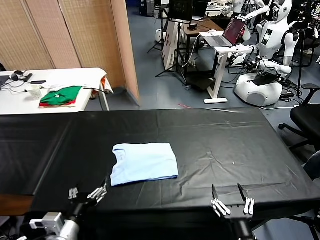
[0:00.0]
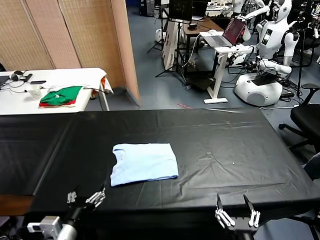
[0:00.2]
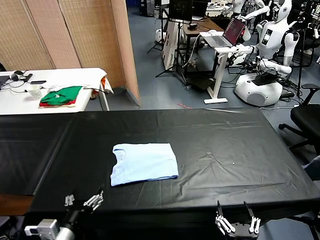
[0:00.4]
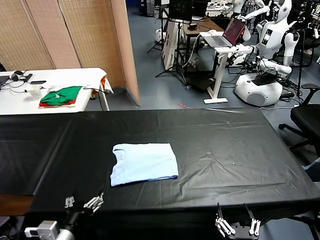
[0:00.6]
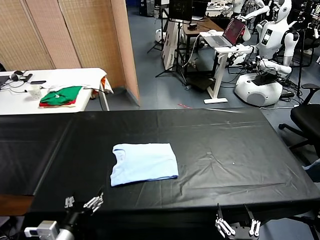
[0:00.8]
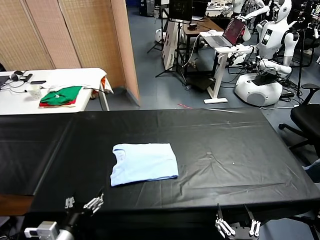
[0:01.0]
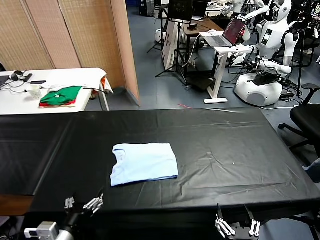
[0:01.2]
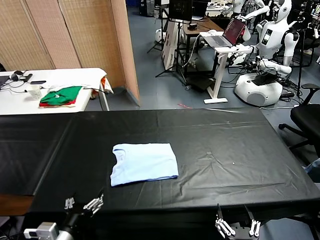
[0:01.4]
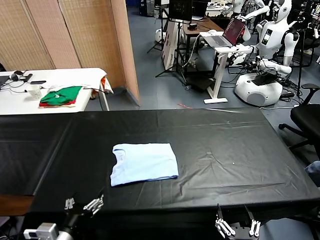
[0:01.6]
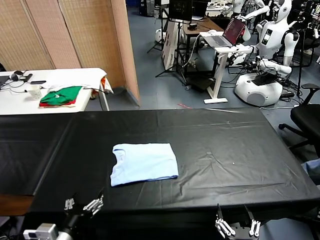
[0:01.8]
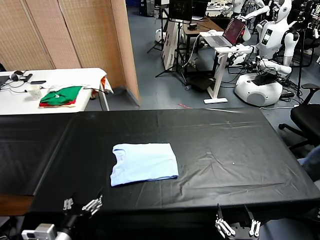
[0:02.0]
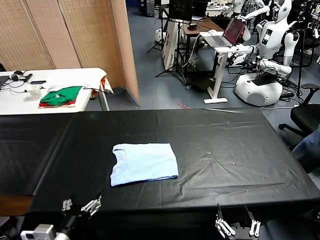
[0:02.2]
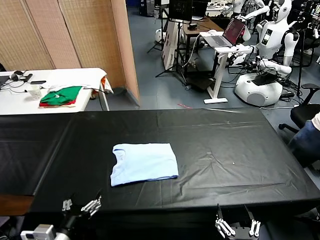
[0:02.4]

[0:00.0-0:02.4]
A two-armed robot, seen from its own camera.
Task of the whole recording: fold and organize the clothes.
0:00.0 to 0:01.2: There are only small adjustments of the grippers.
0:01.2 to 0:02.4: Neither gripper changes place.

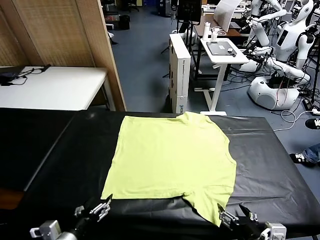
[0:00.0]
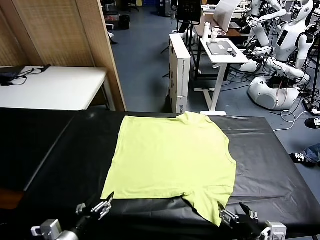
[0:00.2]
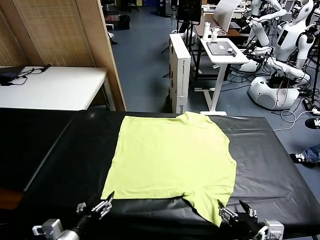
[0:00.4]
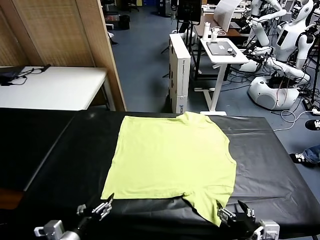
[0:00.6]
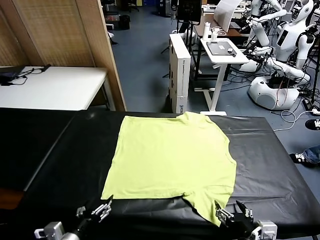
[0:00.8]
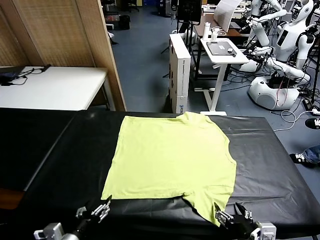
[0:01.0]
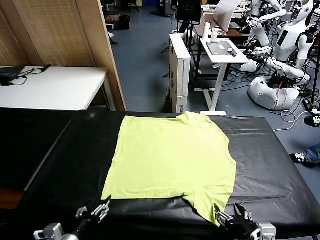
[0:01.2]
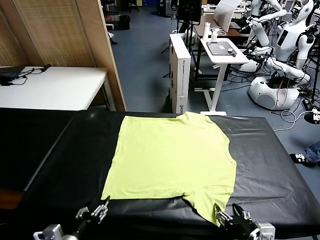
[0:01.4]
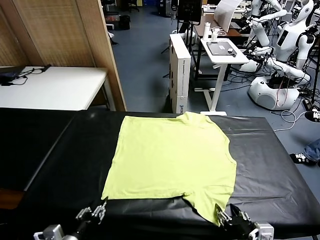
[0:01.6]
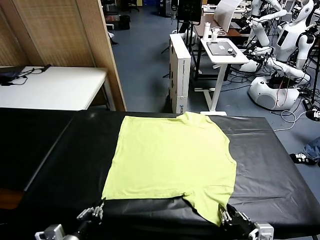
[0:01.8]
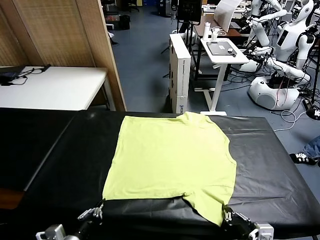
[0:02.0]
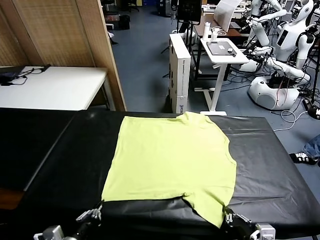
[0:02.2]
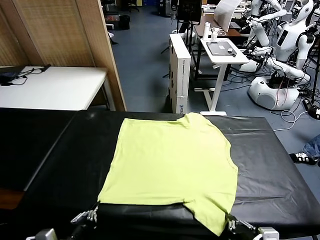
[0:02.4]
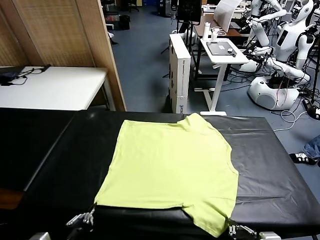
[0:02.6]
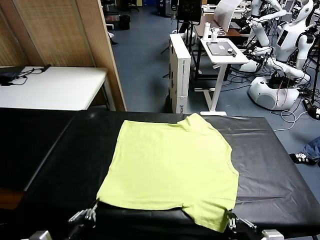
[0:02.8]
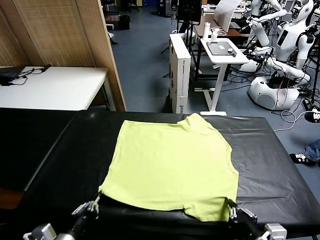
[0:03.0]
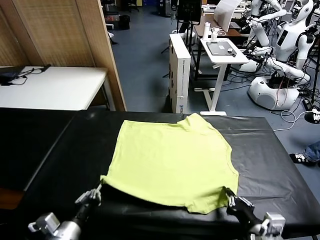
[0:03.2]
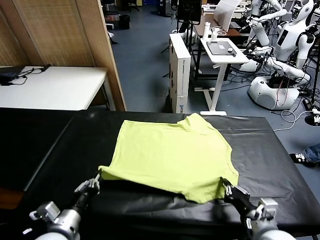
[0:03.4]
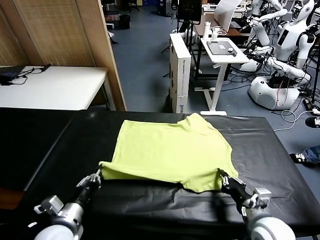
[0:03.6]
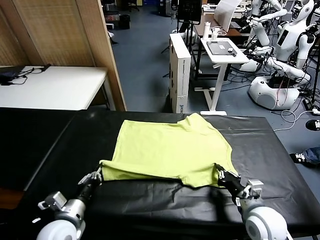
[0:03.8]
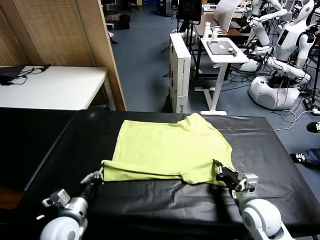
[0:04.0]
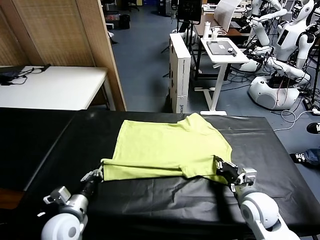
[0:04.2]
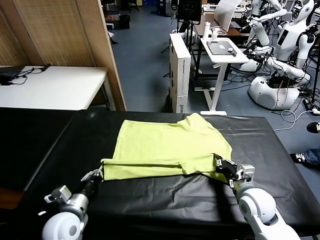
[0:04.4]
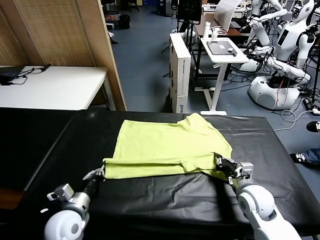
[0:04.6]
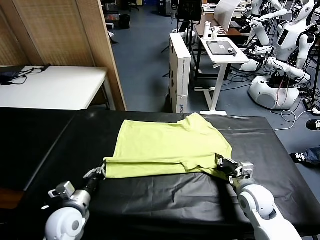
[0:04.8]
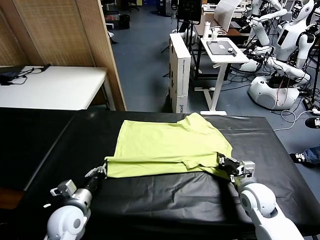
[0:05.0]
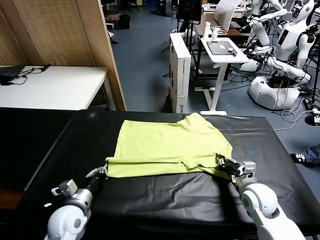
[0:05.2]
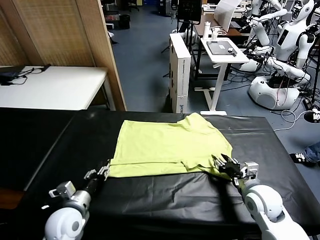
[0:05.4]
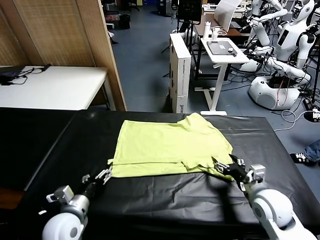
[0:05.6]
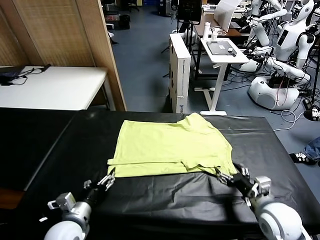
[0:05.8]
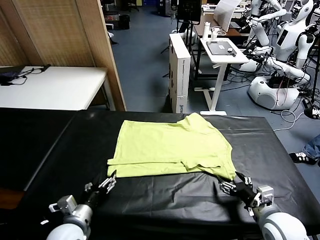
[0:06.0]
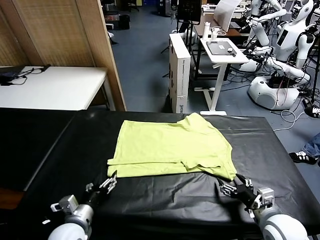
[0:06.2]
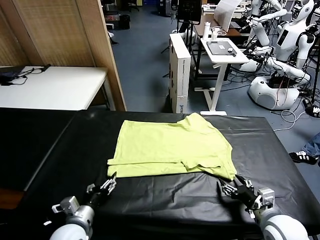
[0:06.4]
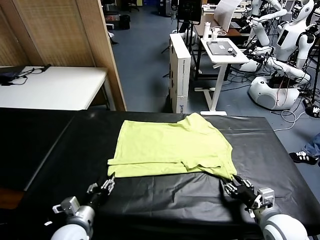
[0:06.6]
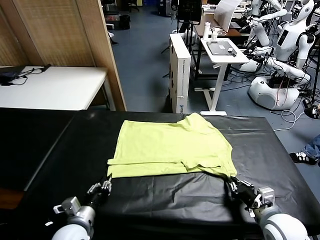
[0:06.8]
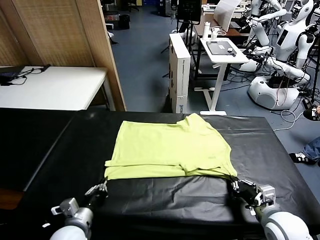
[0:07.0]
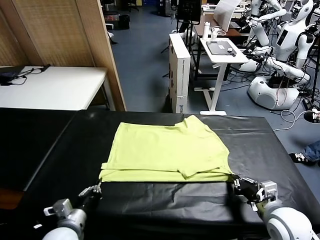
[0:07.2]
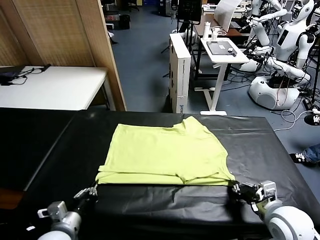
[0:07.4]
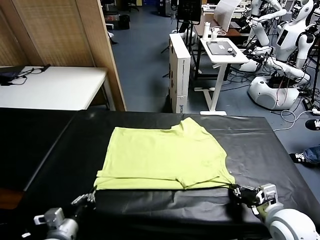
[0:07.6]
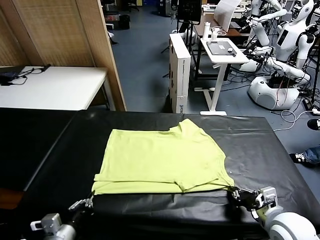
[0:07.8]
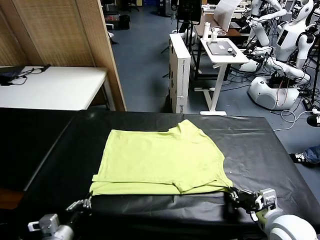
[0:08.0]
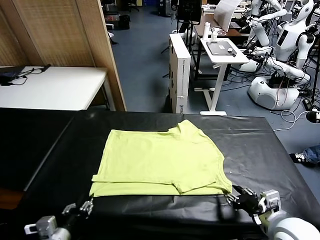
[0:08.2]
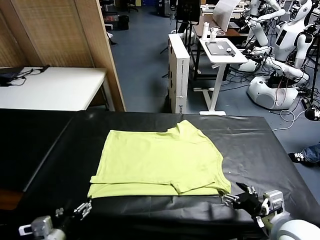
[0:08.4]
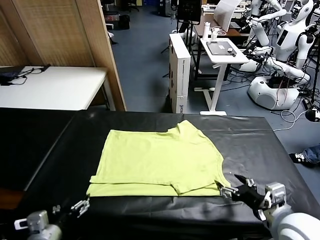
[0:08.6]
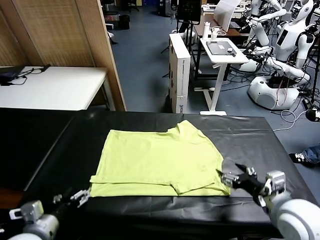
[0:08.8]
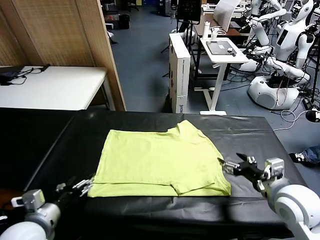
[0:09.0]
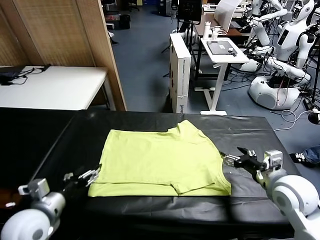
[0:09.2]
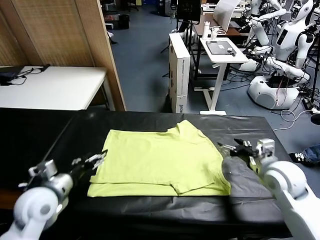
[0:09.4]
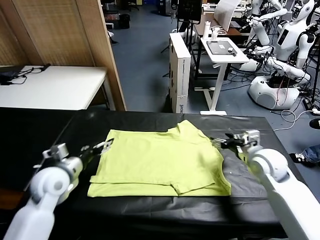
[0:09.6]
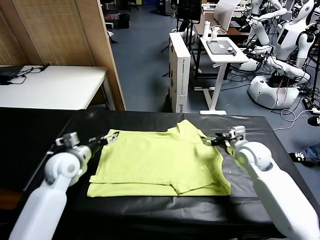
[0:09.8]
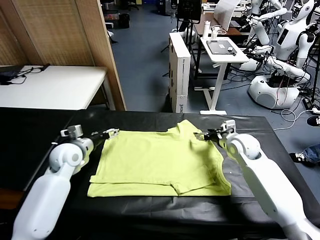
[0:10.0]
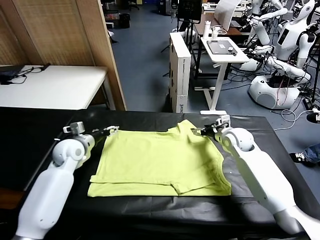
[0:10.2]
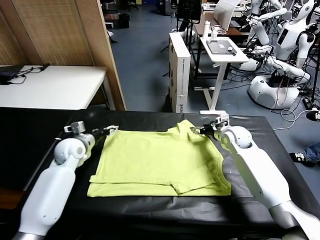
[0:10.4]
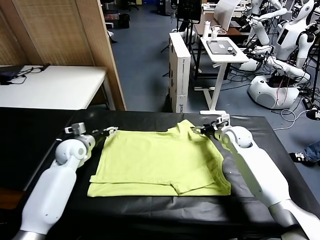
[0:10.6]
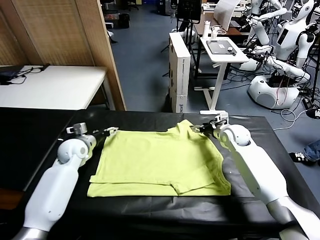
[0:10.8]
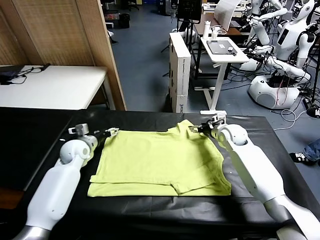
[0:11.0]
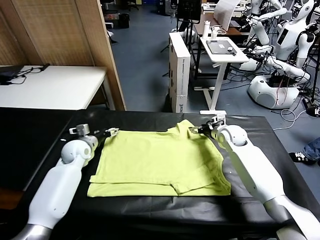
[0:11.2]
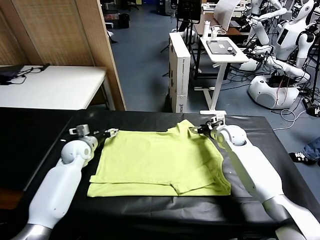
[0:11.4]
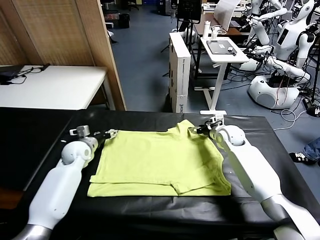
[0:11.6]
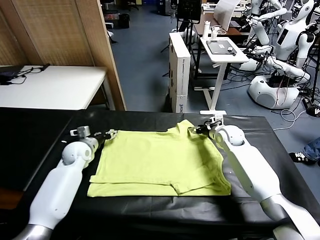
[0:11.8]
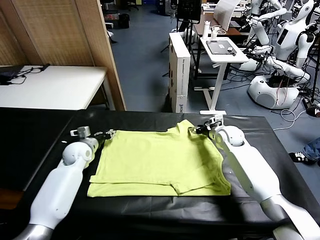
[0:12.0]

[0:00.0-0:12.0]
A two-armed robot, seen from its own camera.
Task of the whole recording: fold and organize the clothes.
Step, 0:00.0 to 0:02.0: use both grippers simultaneously to clamp the lower edge of the clothing fabric.
Step, 0:02.2 to 0:05.4: use both grippers to drag the lower edge of the fabric forward and fold it over the upper edge.
Step, 0:05.6 to 0:08.2: Drag the clothes downward with both gripper.
0:01.6 to 0:03.0: The left gripper ends up about 5 cm from where it was.
0:03.0 to 0:04.4: The left gripper shifts approximately 10 cm forward. The right gripper moves forward, about 15 cm.
0:04.4 to 0:06.0: The right gripper moves backward, roughly 10 cm, and opens. The left gripper opens its fingers.
0:06.0 to 0:07.6: The left gripper heads backward, covering some 5 cm, and closes, while the right gripper closes up.
0:07.6 to 0:09.0: The right gripper is displaced forward and upward by about 10 cm, and opens. The left gripper is displaced upward and forward by about 10 cm, and opens its fingers.
0:09.0 to 0:10.4: Both grippers travel together forward, about 25 cm.
0:10.4 to 0:12.0: The left gripper closes.

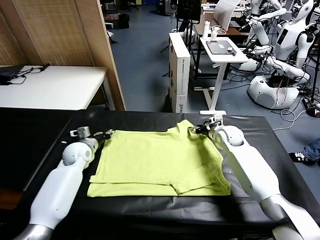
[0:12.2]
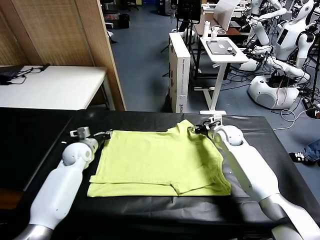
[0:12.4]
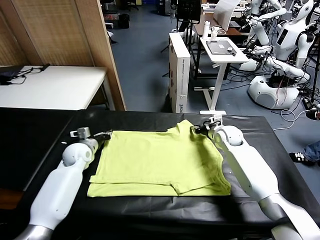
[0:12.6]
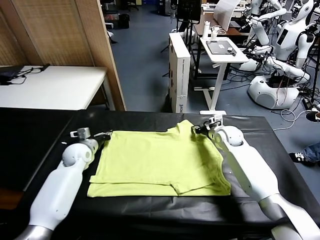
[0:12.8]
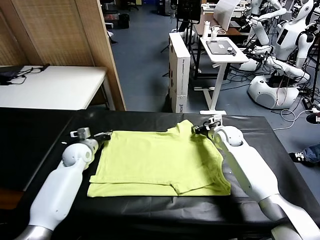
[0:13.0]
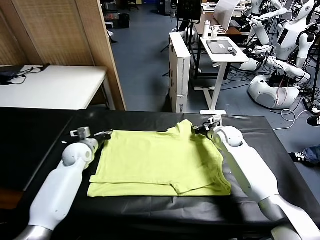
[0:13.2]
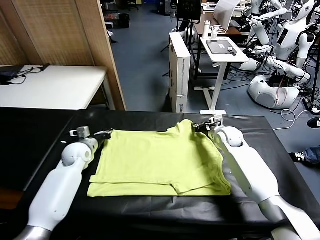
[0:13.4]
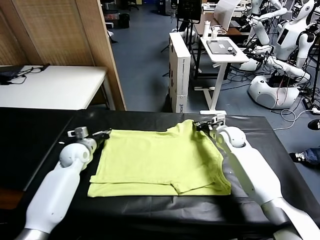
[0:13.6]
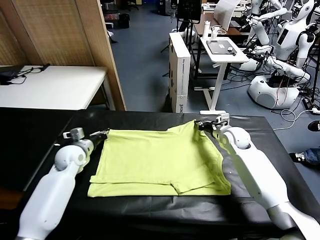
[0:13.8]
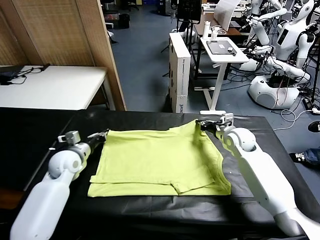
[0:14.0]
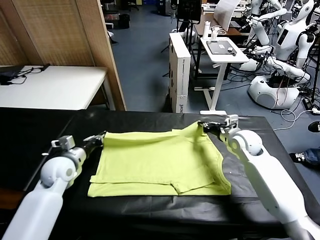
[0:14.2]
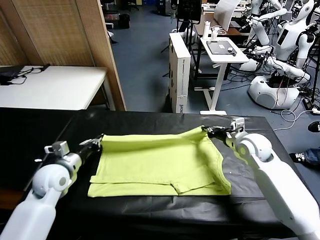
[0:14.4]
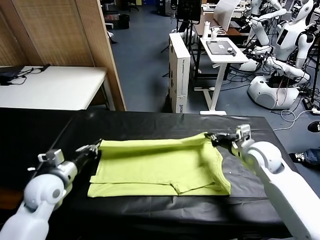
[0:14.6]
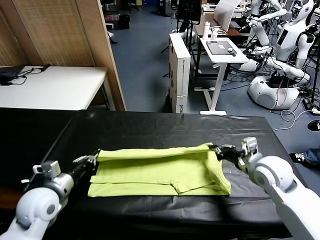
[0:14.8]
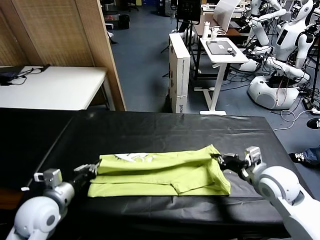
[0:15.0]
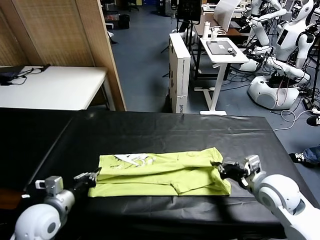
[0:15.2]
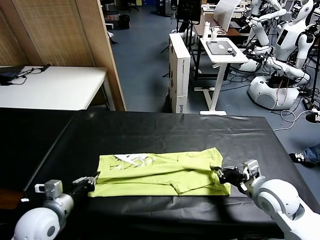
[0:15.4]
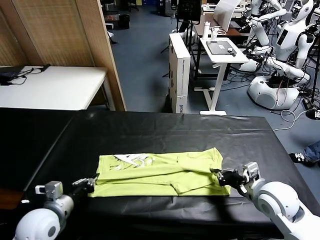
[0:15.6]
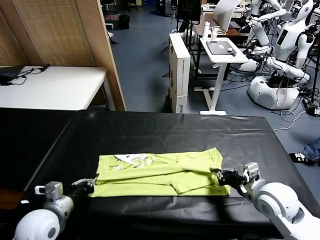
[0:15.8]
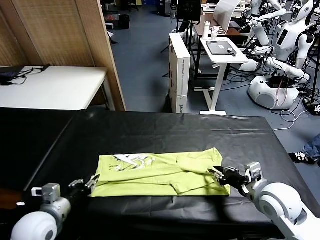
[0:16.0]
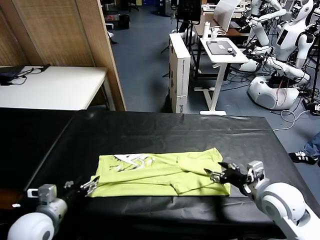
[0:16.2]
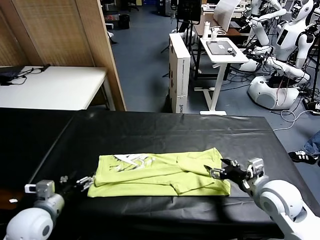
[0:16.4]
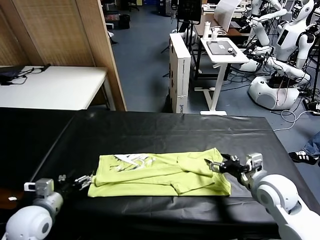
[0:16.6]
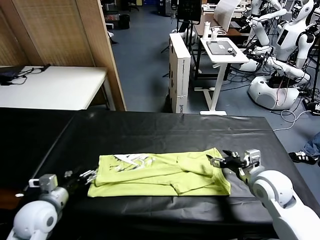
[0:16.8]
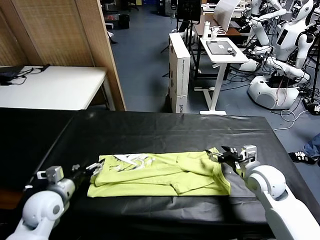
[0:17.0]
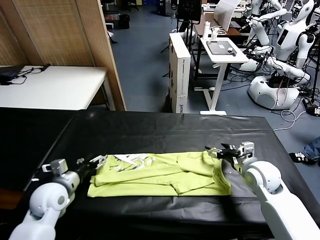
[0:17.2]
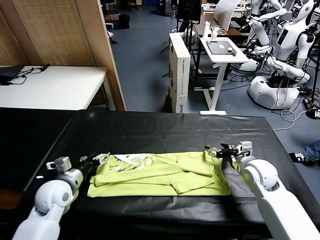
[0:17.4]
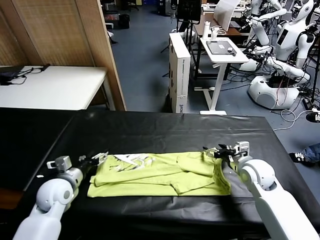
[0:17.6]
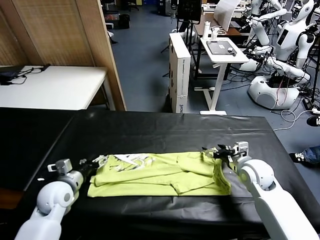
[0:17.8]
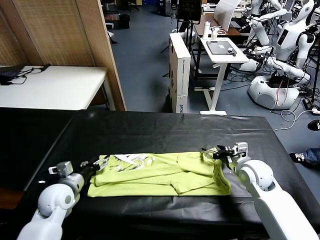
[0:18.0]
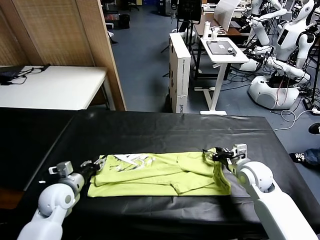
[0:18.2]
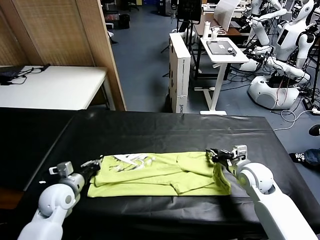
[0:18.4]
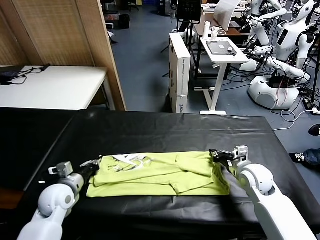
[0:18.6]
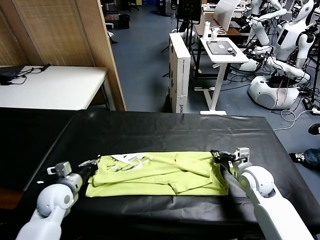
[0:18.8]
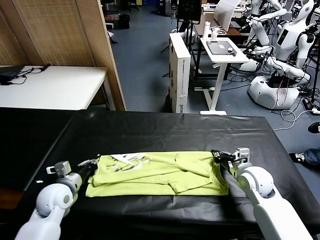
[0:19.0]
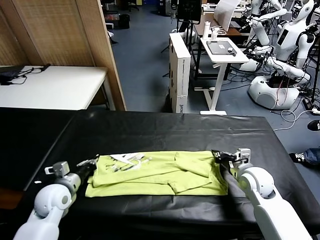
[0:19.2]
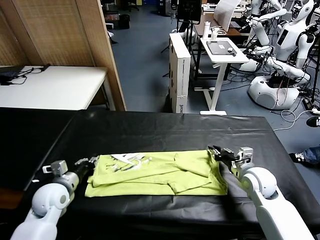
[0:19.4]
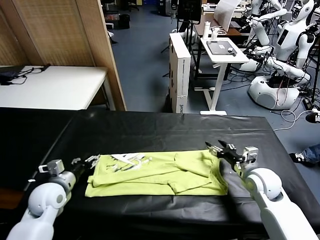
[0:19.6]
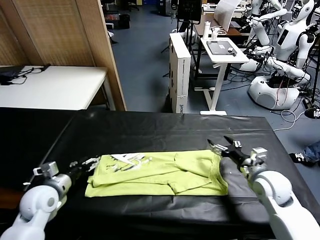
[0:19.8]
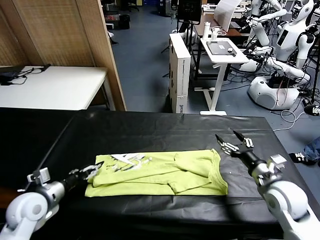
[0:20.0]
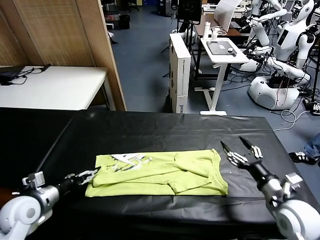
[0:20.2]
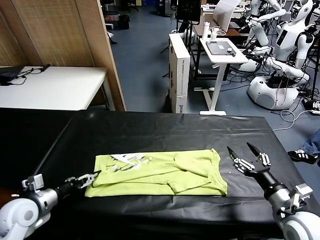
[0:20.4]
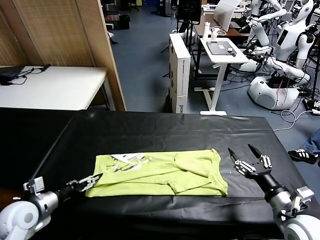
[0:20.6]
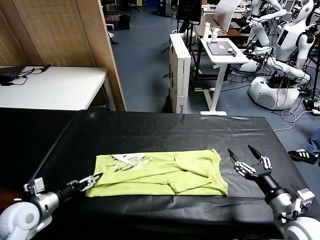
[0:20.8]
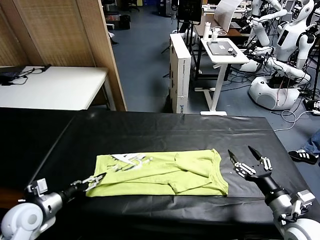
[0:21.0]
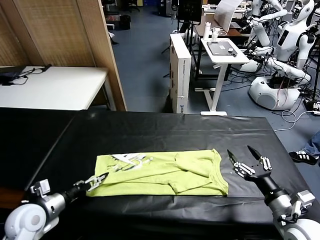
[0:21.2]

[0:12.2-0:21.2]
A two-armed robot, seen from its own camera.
Task of the whole recording: fold and organize the clothes.
Step, 0:13.4 to 0:16.2: use both grippers to drag the upper edge of the fabric backward and fold it over the lower edge.
0:12.2 to 0:13.8: The two grippers go approximately 5 cm backward. The right gripper closes up.
0:13.8 to 0:15.2: The grippers both shift backward by roughly 20 cm.
0:15.2 to 0:16.6: The right gripper opens; the left gripper opens its fingers.
0:16.6 to 0:18.2: The right gripper changes place by about 5 cm, and closes its fingers. The left gripper moves forward, about 5 cm, and closes up.
0:18.2 to 0:19.8: The left gripper shifts by about 10 cm, and opens, while the right gripper goes some 10 cm backward, and opens up.
0:19.8 to 0:21.2: The right gripper goes about 10 cm backward.
